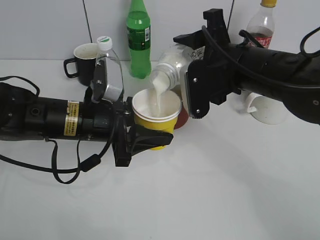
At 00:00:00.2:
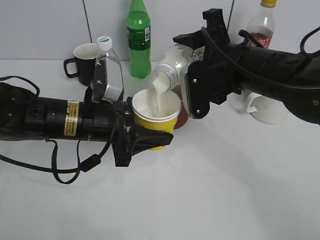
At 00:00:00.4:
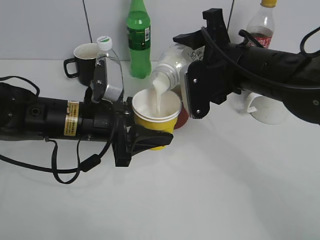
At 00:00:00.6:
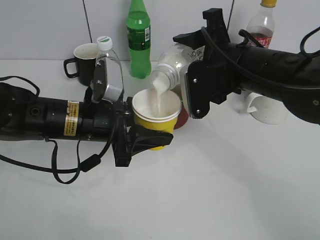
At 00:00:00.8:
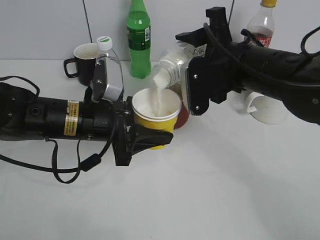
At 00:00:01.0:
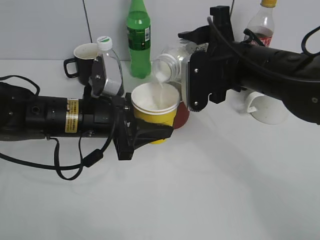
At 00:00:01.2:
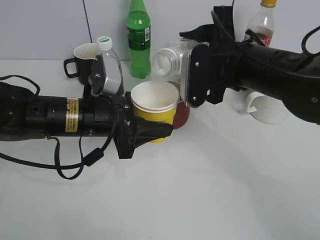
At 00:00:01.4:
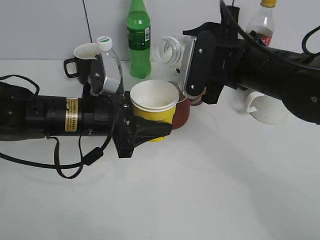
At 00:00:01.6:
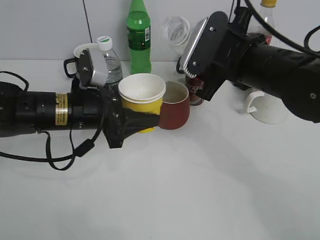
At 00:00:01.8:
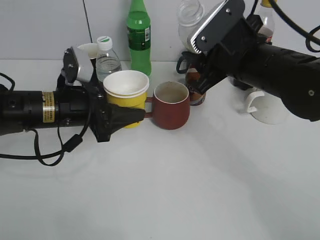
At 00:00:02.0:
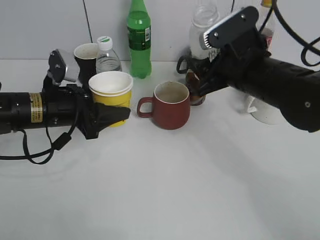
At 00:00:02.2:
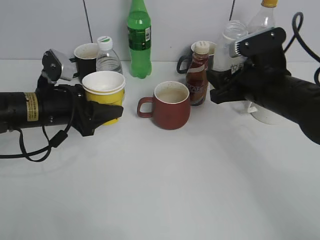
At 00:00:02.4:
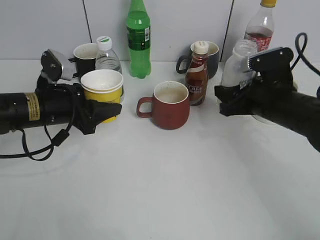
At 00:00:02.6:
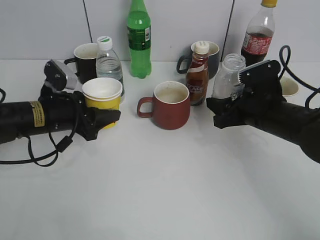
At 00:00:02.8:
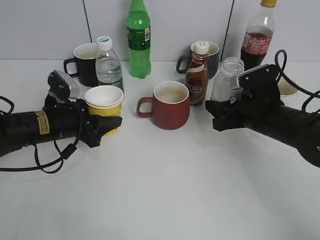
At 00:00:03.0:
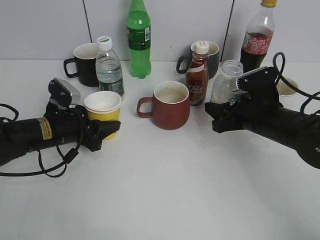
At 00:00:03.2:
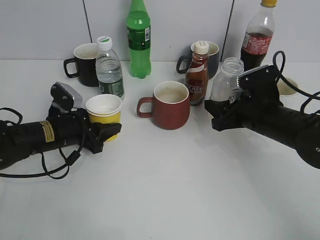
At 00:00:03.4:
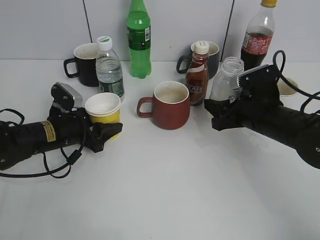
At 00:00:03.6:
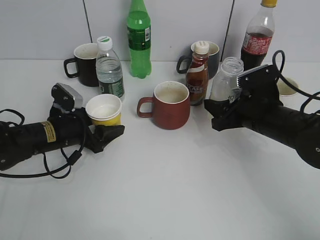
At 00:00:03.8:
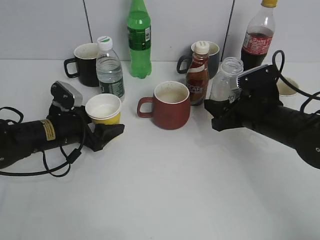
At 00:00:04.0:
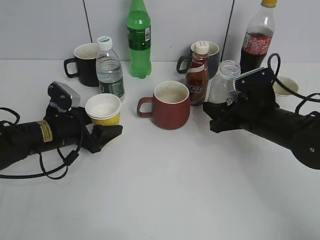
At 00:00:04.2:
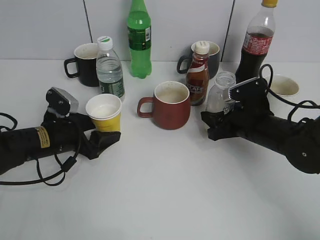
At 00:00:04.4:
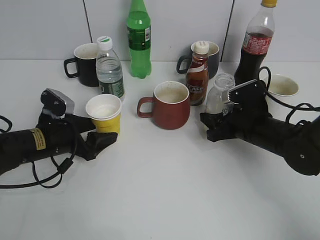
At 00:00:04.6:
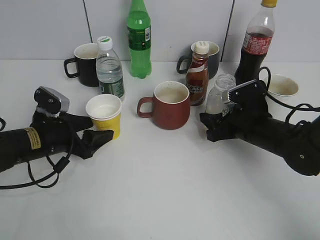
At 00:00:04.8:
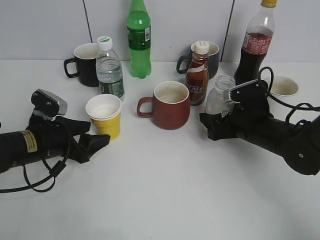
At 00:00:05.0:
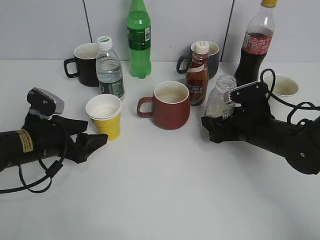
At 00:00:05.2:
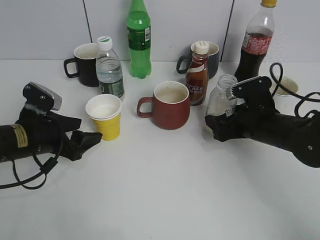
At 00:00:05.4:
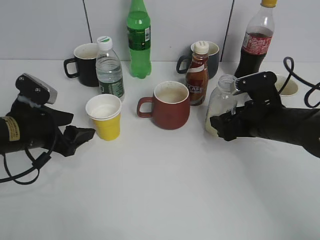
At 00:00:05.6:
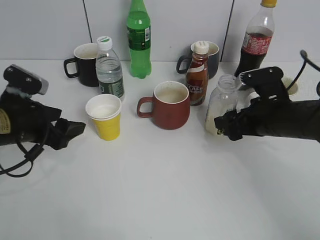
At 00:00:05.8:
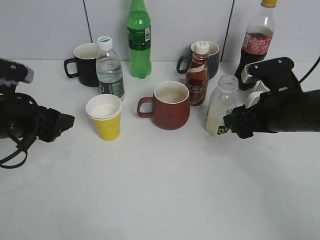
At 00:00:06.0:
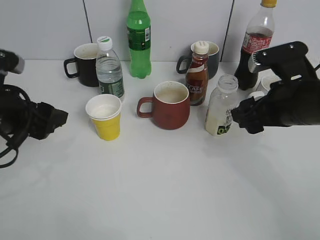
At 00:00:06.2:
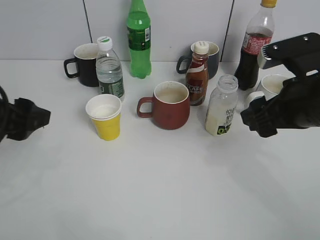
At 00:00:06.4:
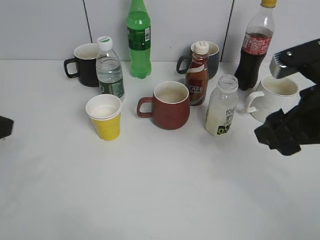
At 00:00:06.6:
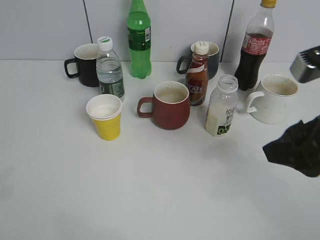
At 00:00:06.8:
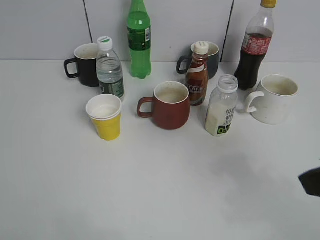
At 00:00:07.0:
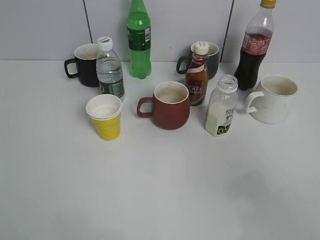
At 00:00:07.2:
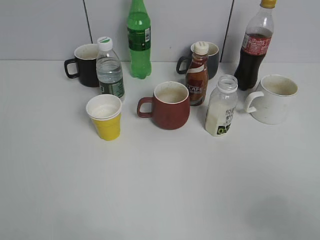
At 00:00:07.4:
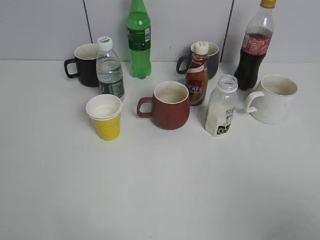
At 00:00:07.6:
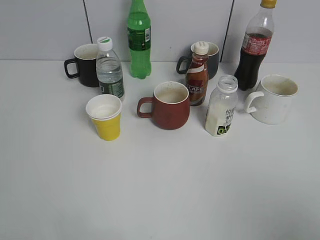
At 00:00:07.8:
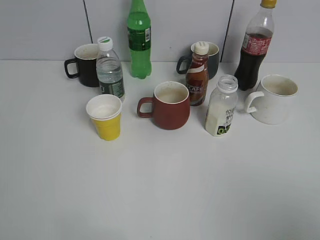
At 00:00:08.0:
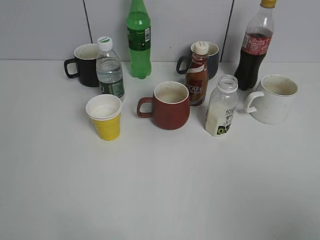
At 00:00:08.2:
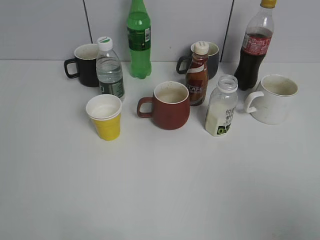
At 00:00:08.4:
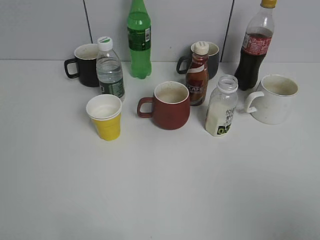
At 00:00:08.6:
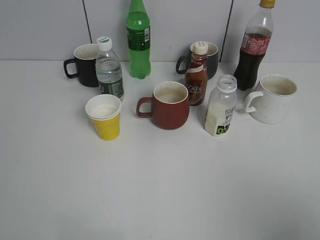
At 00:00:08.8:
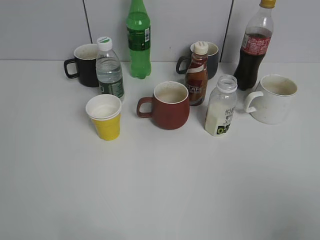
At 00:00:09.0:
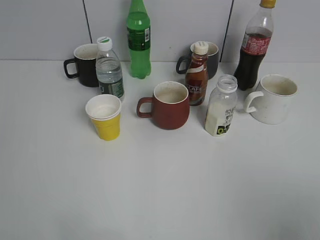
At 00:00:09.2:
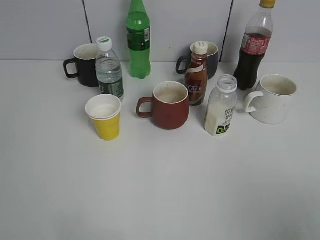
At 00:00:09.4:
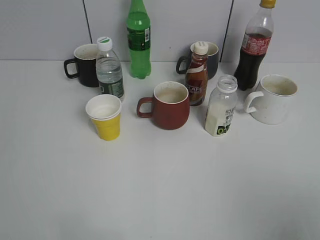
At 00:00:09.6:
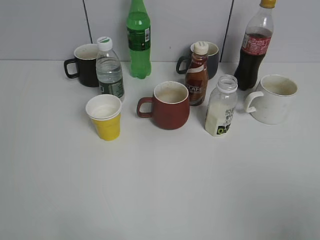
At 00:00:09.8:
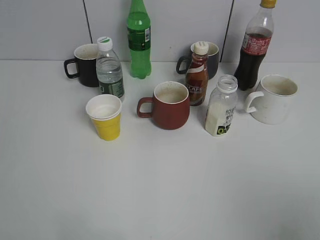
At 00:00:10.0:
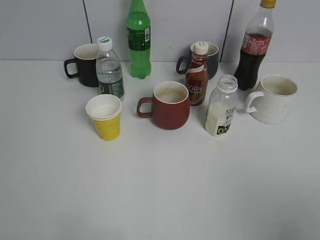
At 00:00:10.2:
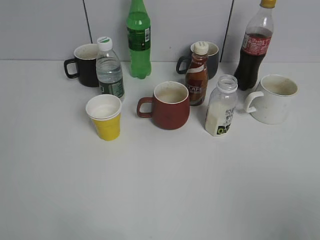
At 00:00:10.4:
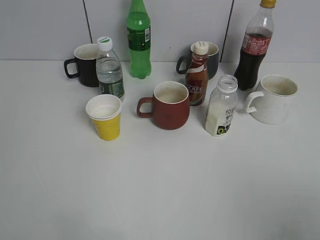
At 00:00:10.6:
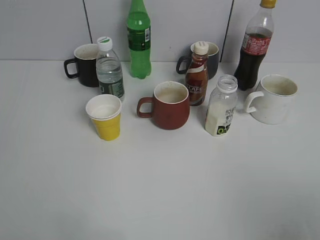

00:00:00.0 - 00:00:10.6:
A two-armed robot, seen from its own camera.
Step, 00:00:01.4 - 00:00:05.8: Place the yuexian Milk bottle on the table with right gripper.
00:00:01.6 - 00:00:03.0: The right gripper shifts approximately 15 cm downward and to the right, while the left gripper is displaced downward and to the left by roughly 10 cm.
00:00:03.0 - 00:00:04.6: The left gripper opens up.
00:00:04.6 - 00:00:06.0: Both grippers travel together upward and backward, approximately 15 cm. The right gripper opens its fingers.
00:00:06.0 - 00:00:07.6: Both grippers travel together backward, some 25 cm.
00:00:09.0 - 00:00:10.6: Neither gripper changes place.
